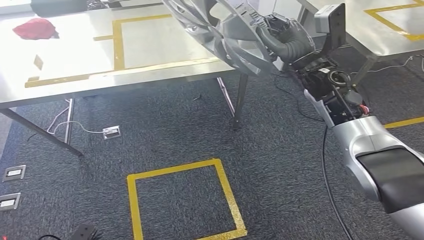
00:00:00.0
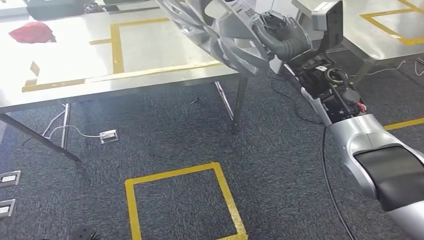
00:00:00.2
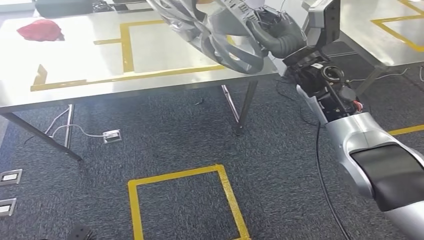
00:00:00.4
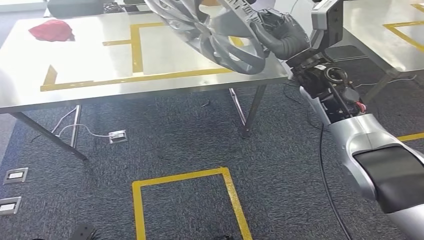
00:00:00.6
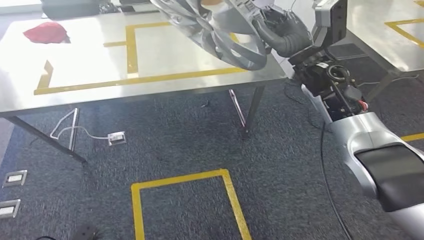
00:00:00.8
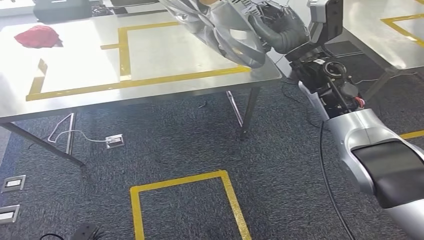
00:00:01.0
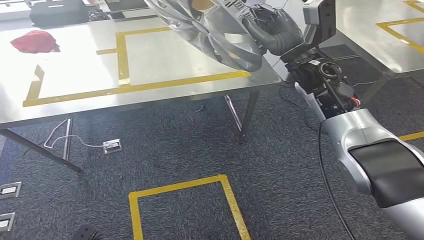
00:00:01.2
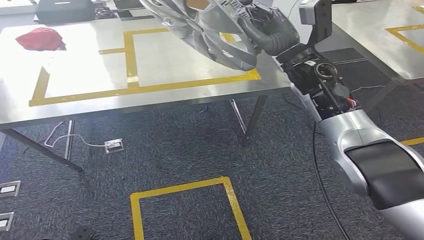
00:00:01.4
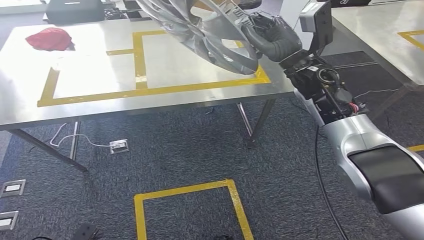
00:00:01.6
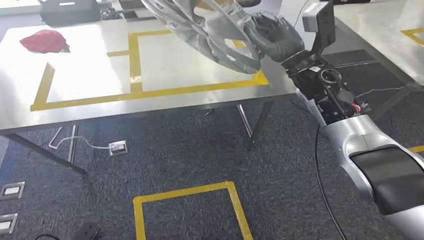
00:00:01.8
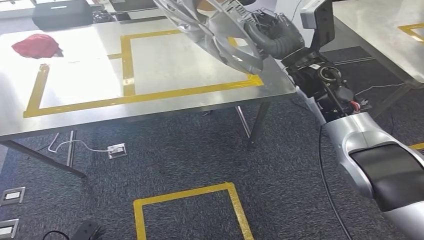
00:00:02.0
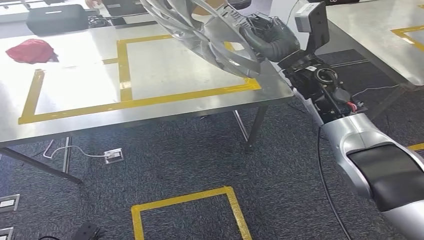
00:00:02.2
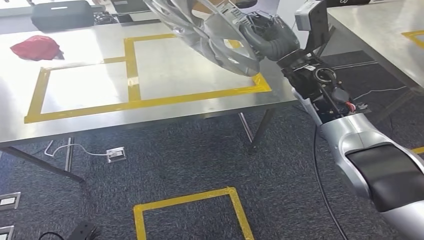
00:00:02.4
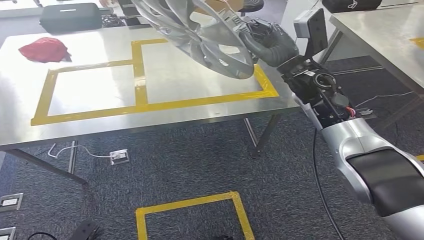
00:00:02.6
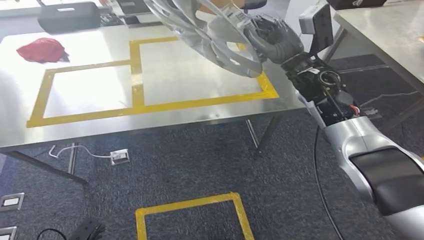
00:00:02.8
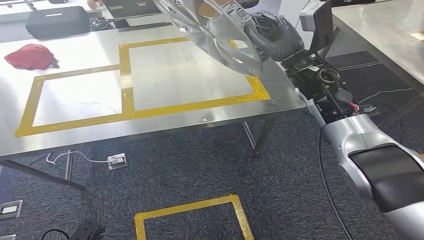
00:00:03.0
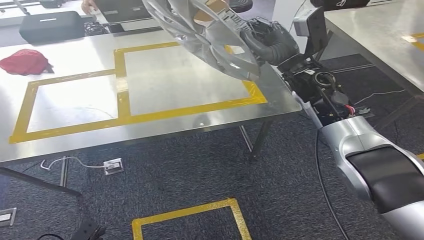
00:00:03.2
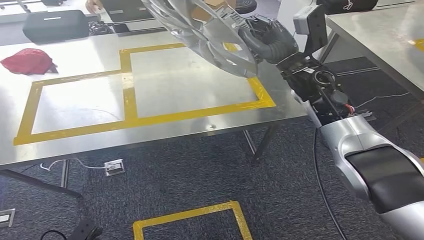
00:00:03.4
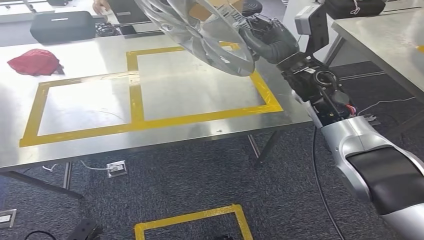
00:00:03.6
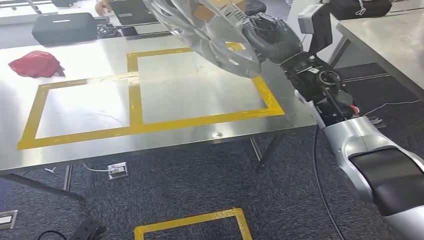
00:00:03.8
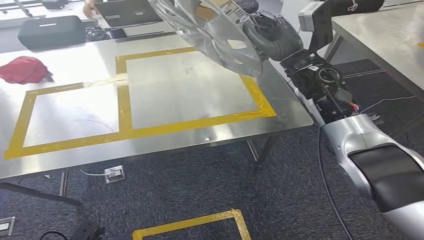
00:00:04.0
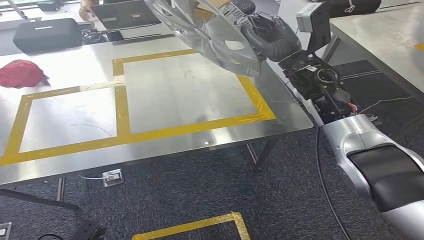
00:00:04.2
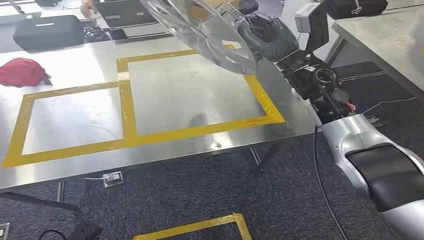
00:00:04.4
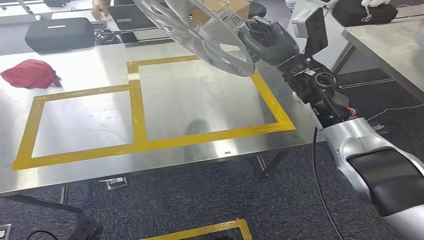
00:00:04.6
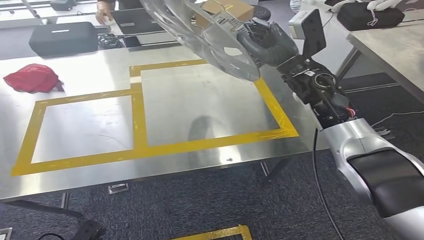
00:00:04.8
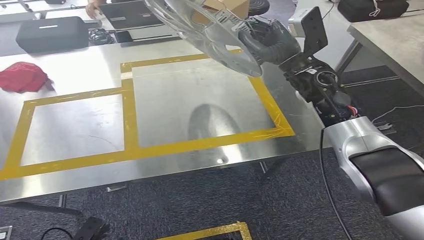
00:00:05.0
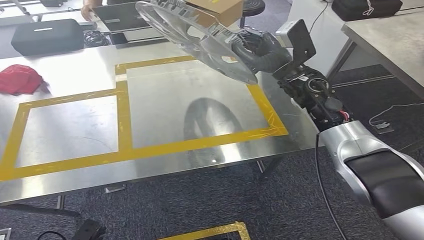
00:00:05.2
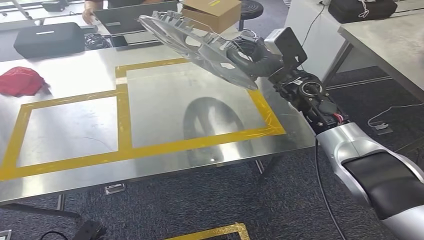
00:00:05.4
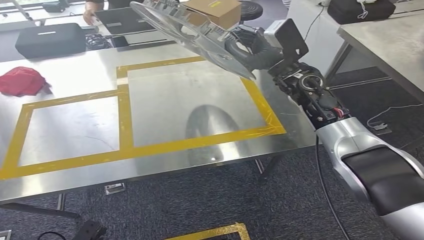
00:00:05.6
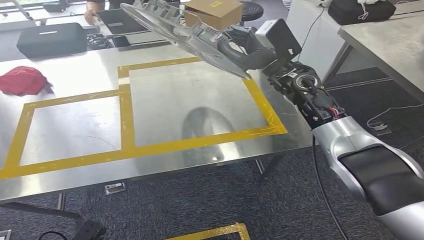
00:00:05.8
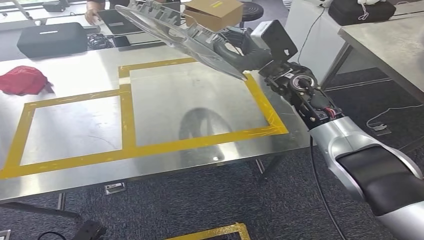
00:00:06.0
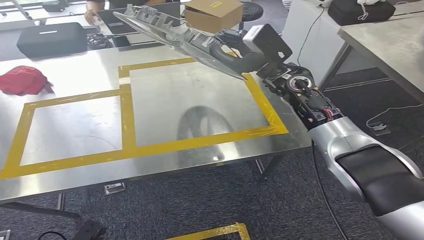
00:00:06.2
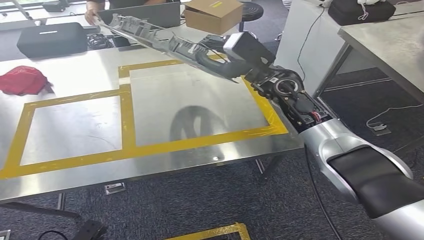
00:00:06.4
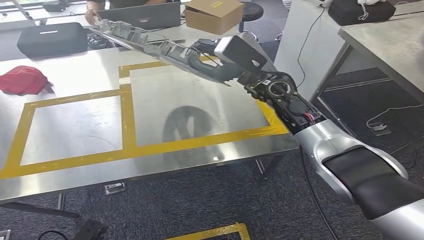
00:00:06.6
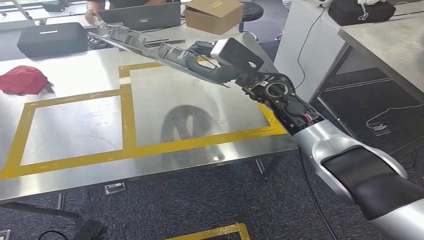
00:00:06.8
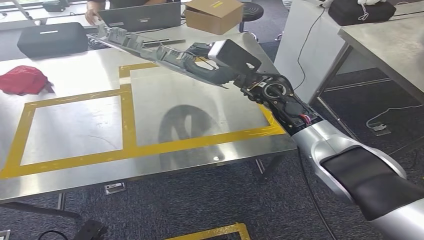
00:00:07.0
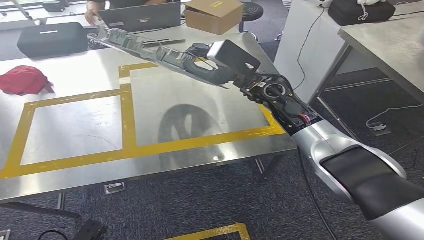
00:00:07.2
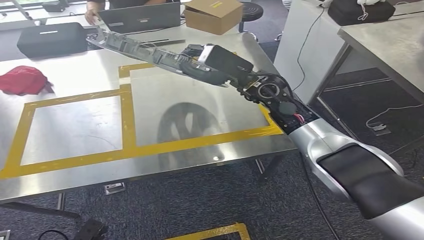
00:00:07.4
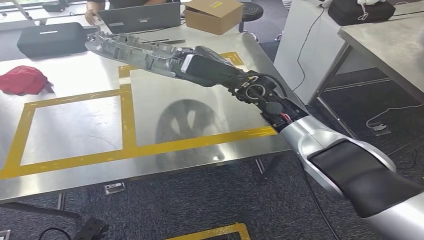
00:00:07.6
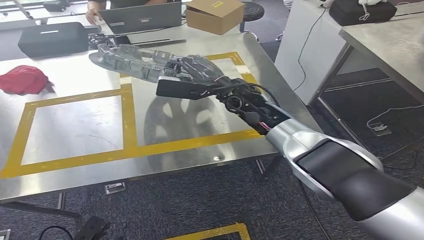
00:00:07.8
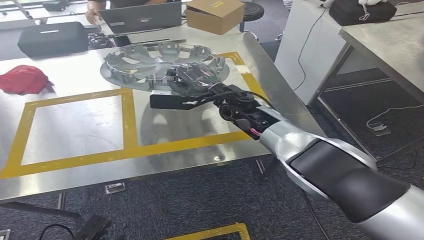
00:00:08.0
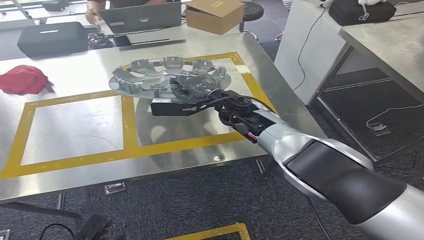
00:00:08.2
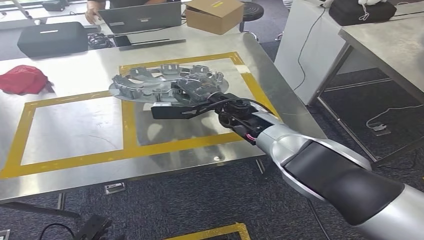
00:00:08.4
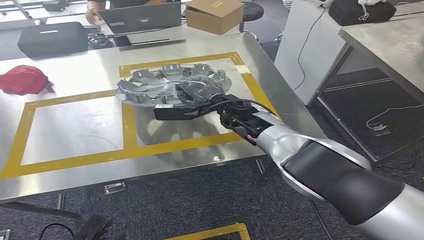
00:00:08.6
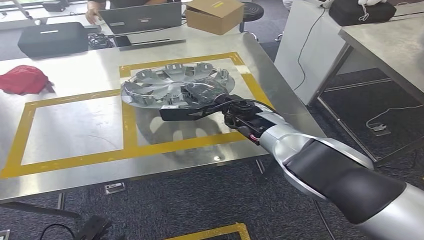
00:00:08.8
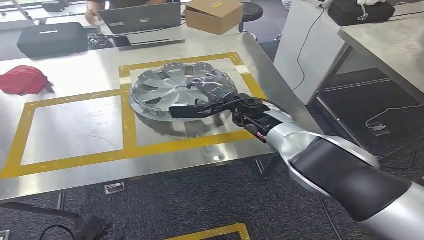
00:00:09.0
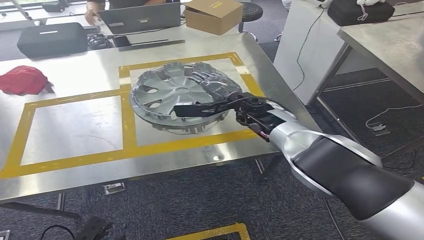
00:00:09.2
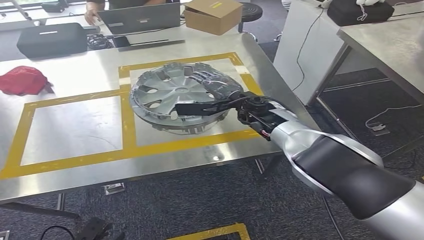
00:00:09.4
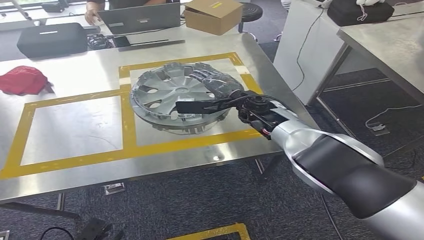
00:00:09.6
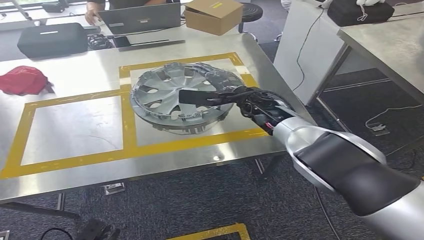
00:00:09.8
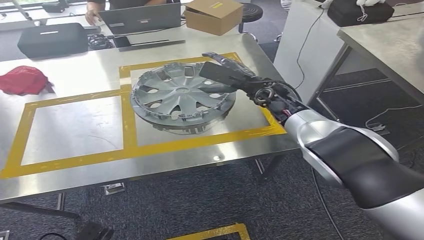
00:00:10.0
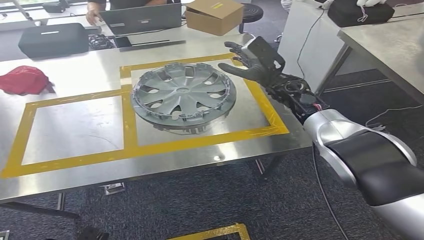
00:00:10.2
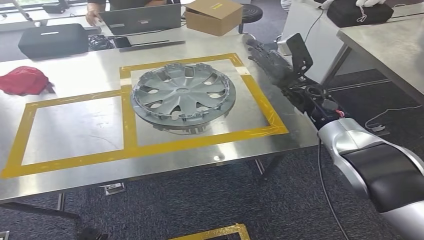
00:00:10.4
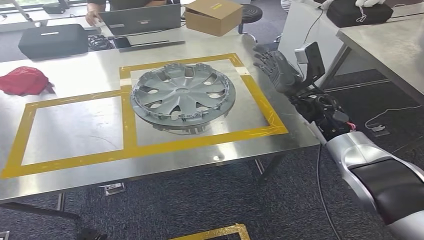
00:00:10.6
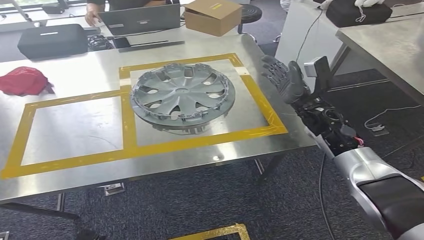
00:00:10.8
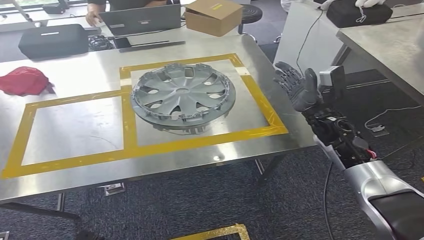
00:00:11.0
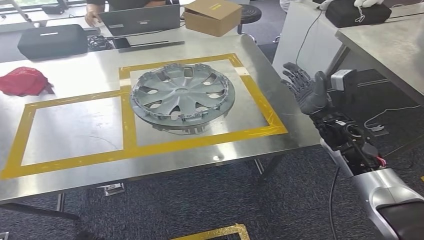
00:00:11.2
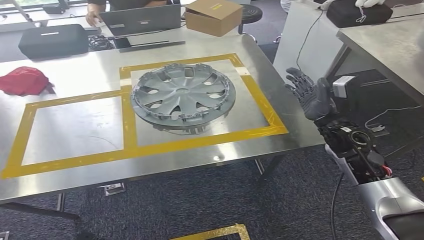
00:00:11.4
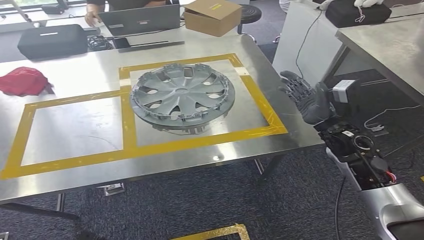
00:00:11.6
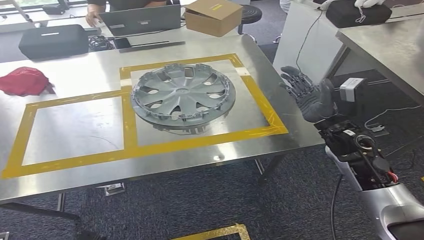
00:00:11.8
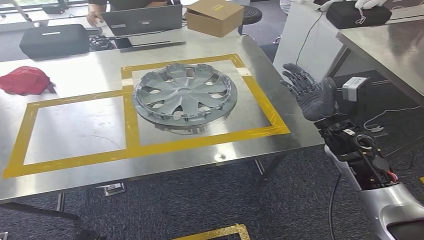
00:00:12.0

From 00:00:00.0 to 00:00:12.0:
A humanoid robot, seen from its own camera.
Step, from 00:00:00.0 to 00:00:03.8: Move the small component to the workbench.
Step, from 00:00:04.0 to 00:00:11.0: Insert the small component into the corresponding slot on the workbench.
From 00:00:07.6 to 00:00:09.0: The right hand goes approximately 10 cm downward.
From 00:00:09.0 to 00:00:10.4: The right hand goes some 15 cm to the right.
From 00:00:10.4 to 00:00:12.0: The right hand travels backward by approximately 15 cm.

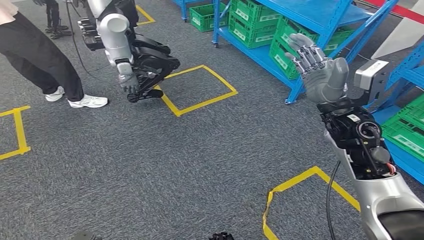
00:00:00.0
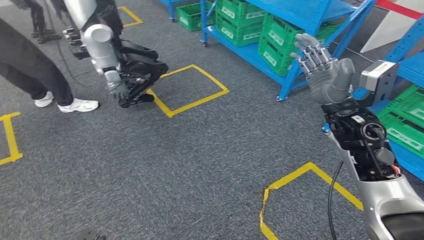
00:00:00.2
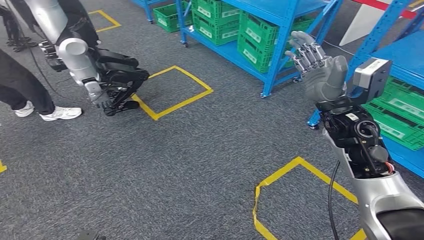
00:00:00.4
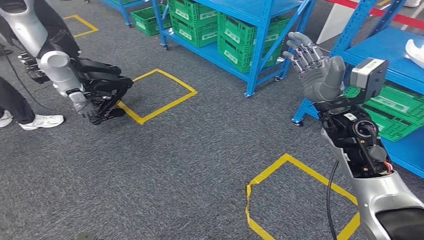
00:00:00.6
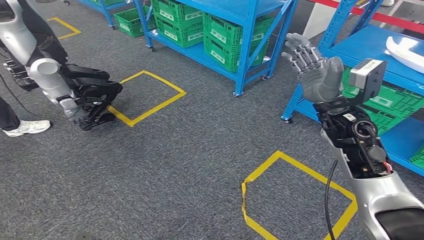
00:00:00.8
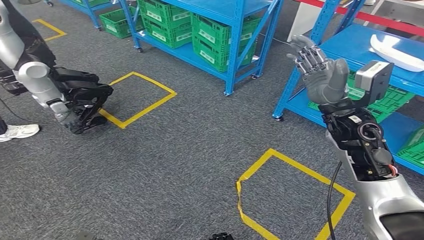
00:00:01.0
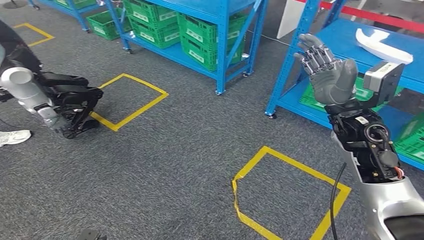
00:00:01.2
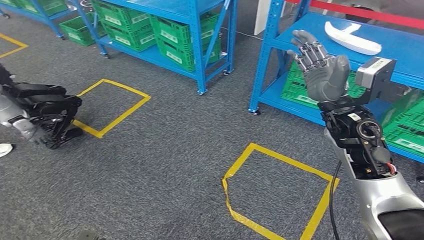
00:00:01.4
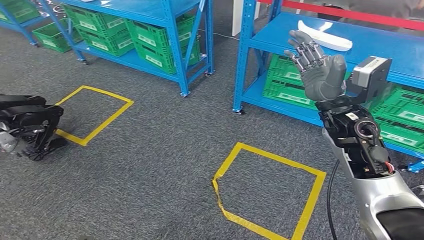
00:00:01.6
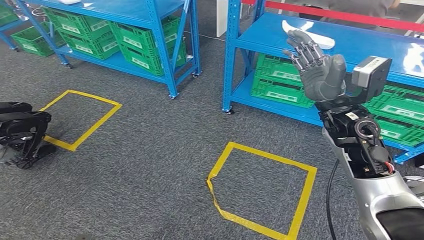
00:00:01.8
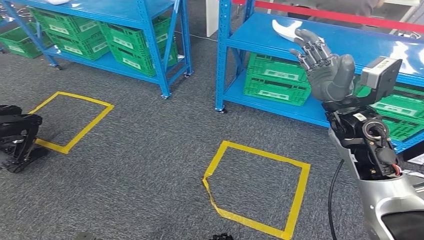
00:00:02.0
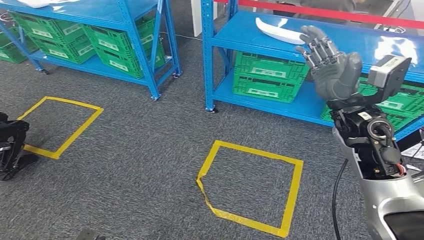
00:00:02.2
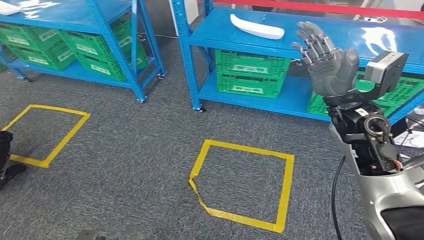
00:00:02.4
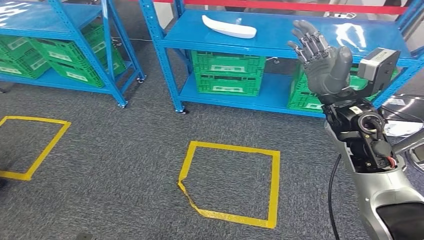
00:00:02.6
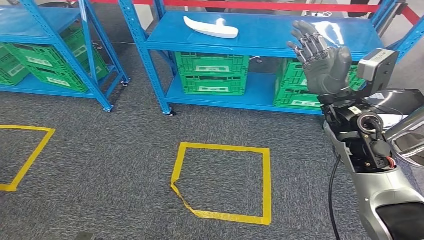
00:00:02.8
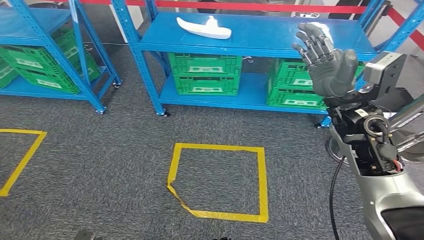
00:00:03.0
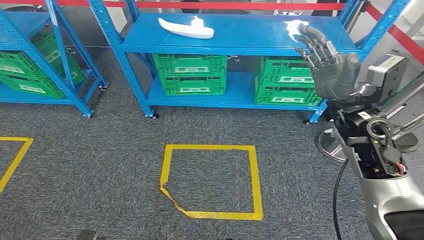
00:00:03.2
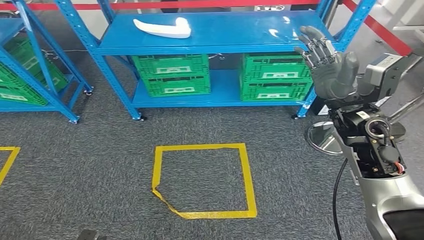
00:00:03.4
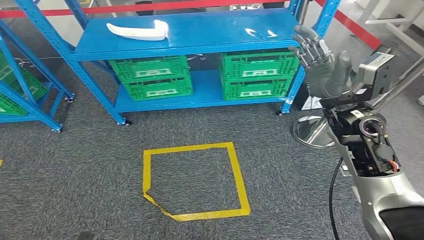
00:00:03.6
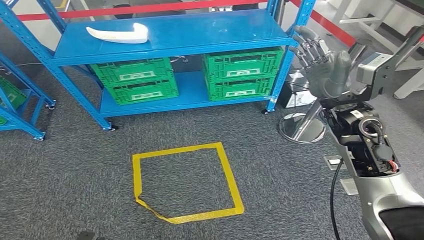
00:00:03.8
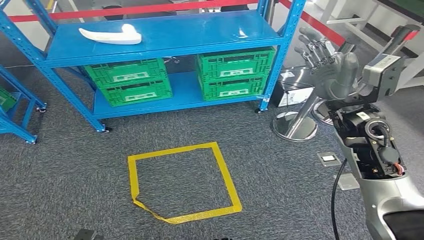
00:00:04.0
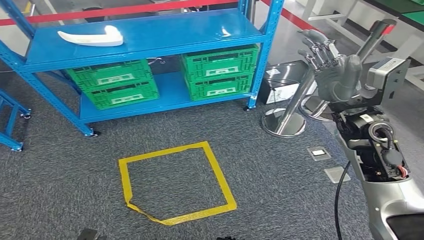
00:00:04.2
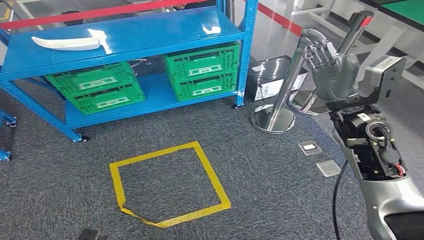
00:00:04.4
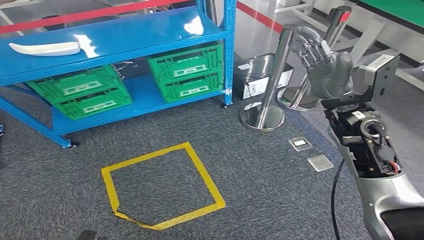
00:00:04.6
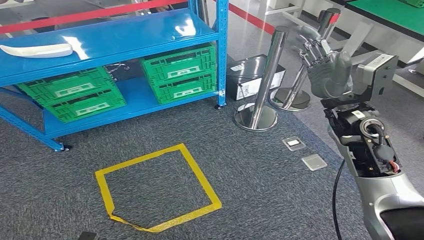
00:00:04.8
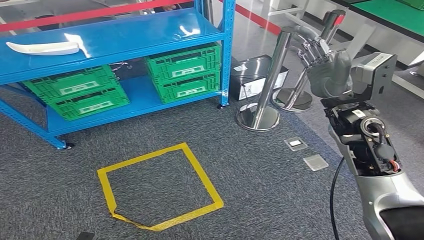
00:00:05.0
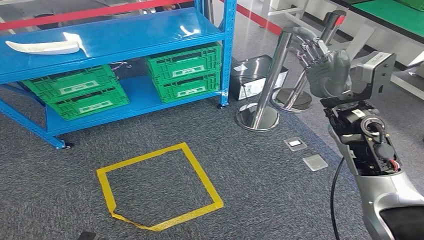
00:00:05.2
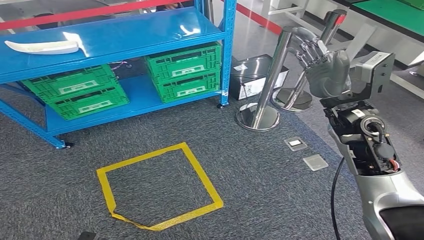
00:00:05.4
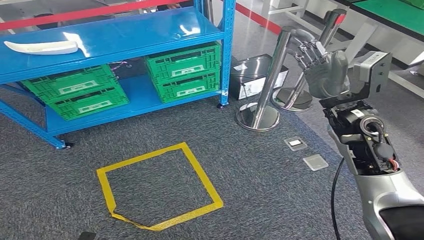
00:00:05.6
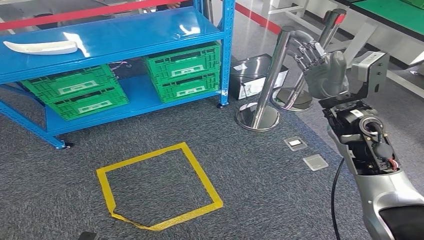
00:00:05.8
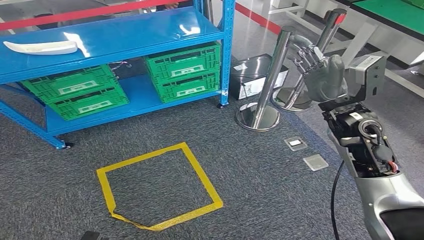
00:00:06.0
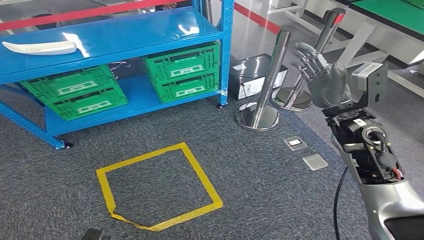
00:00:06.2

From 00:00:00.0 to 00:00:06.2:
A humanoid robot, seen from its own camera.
Step, from 00:00:00.0 to 00:00:06.2: Return to the initial position at the workbench.
